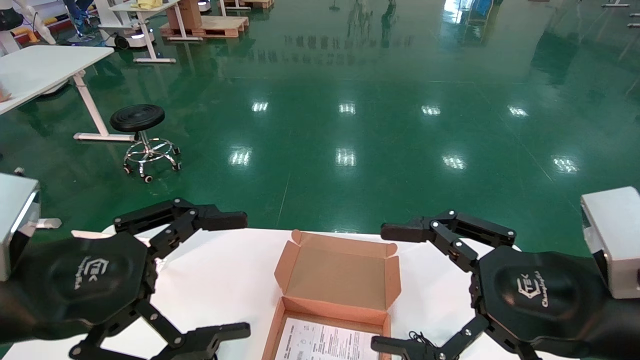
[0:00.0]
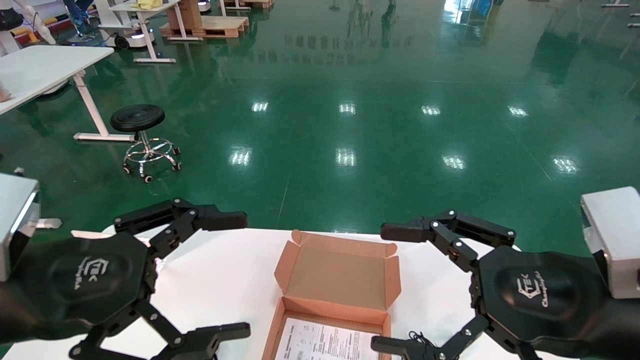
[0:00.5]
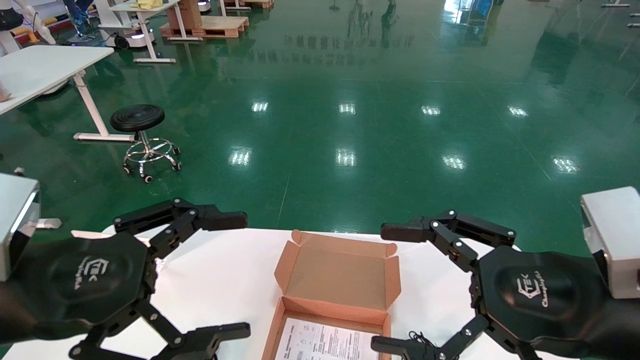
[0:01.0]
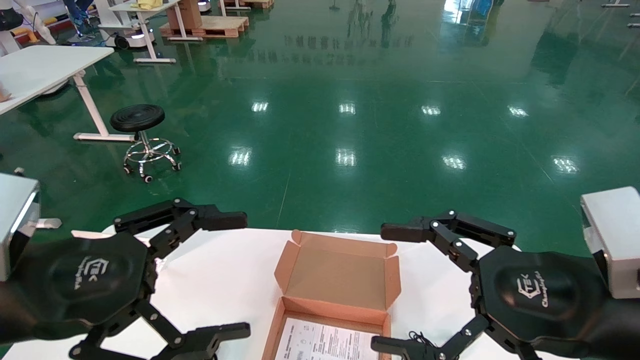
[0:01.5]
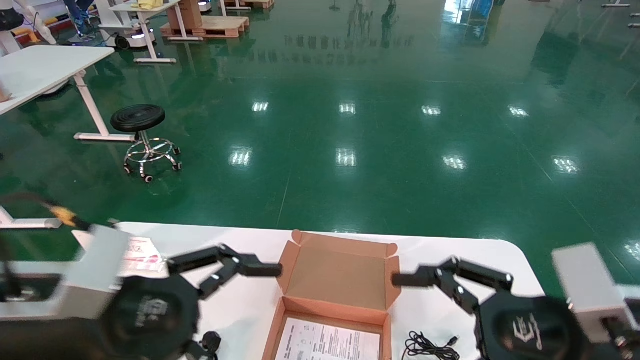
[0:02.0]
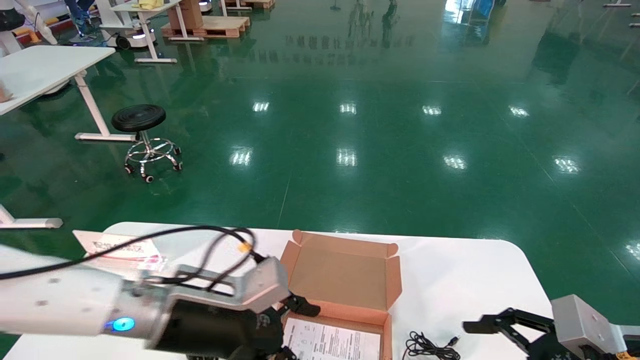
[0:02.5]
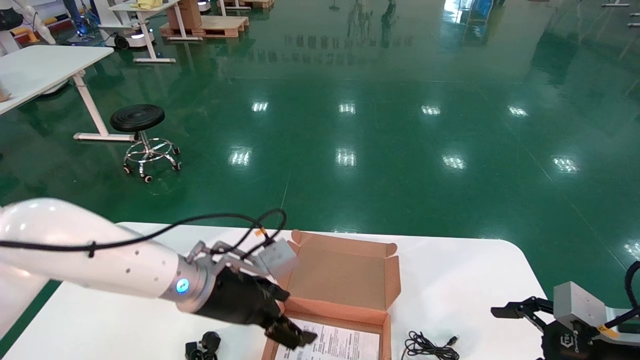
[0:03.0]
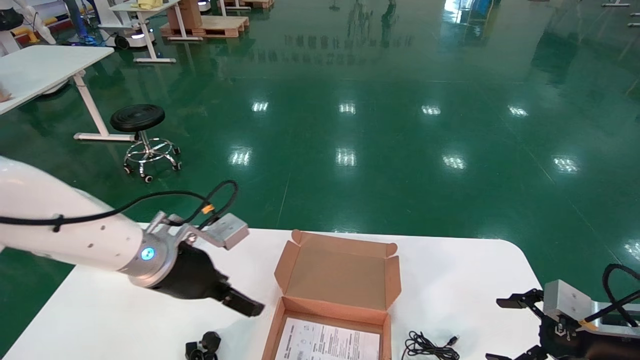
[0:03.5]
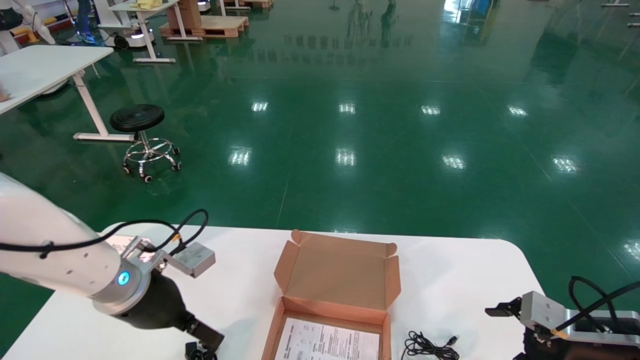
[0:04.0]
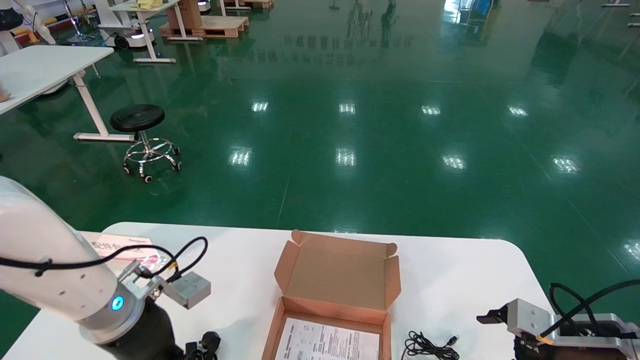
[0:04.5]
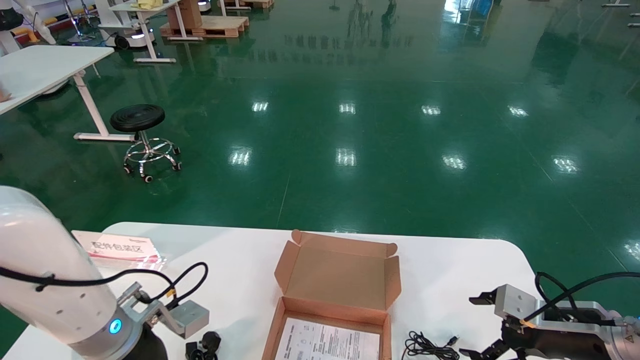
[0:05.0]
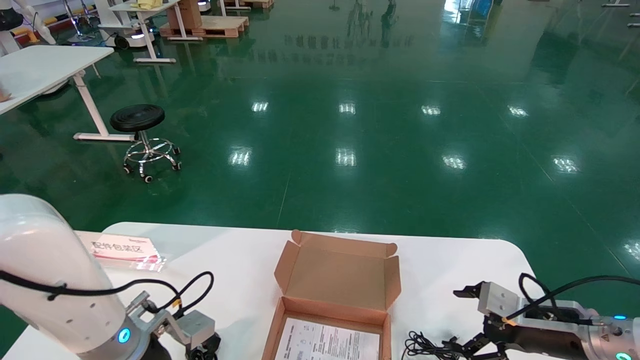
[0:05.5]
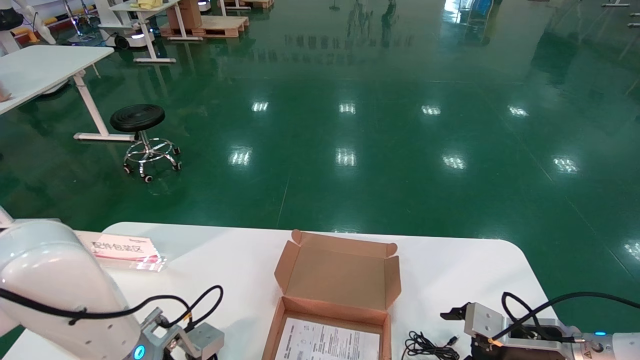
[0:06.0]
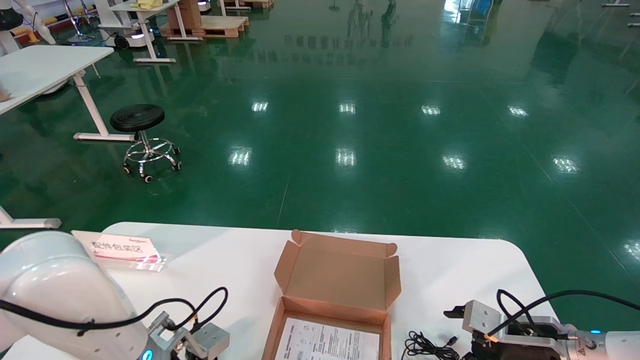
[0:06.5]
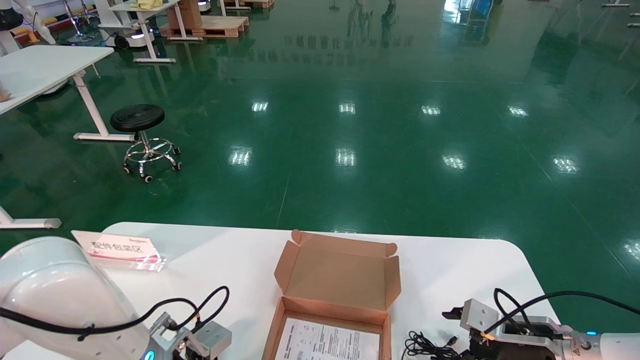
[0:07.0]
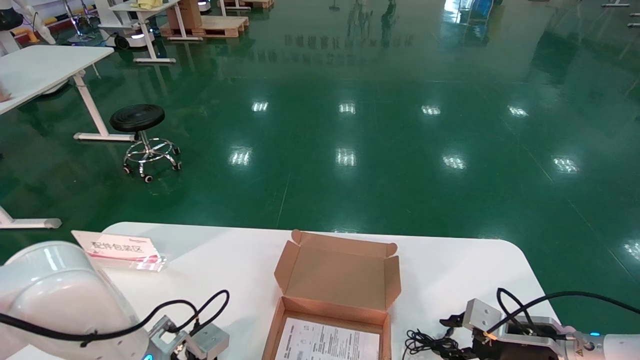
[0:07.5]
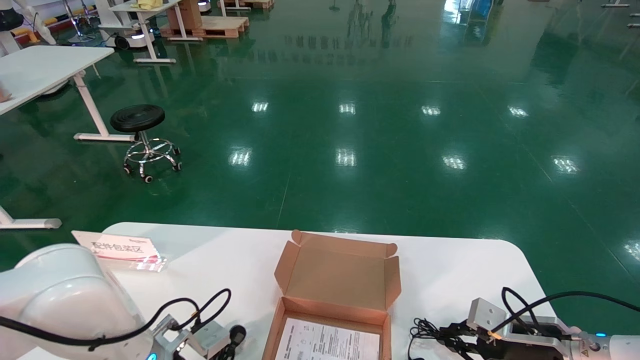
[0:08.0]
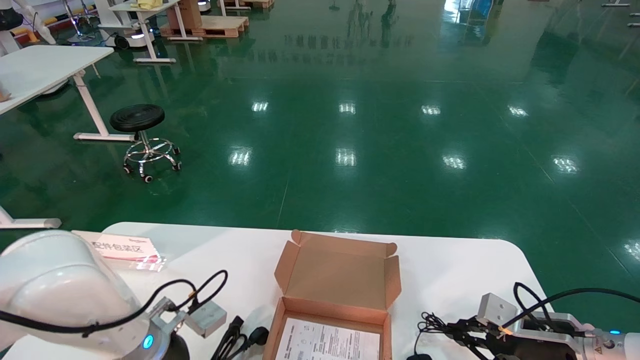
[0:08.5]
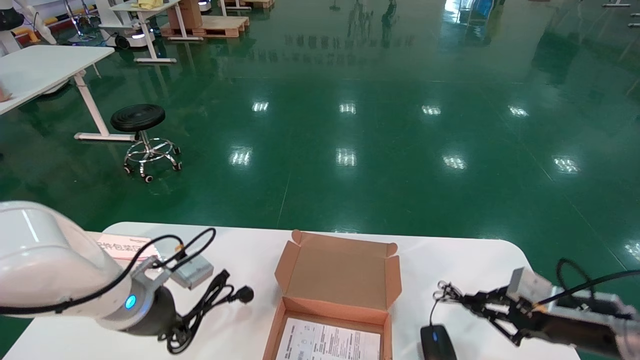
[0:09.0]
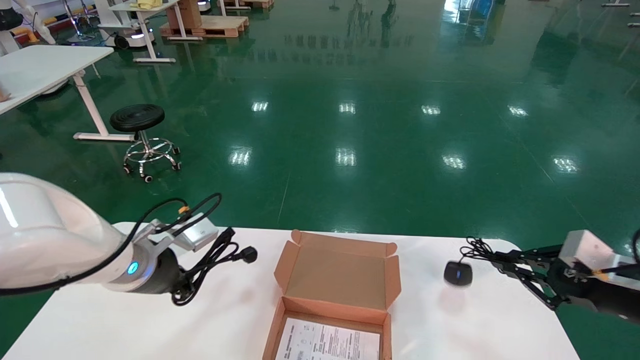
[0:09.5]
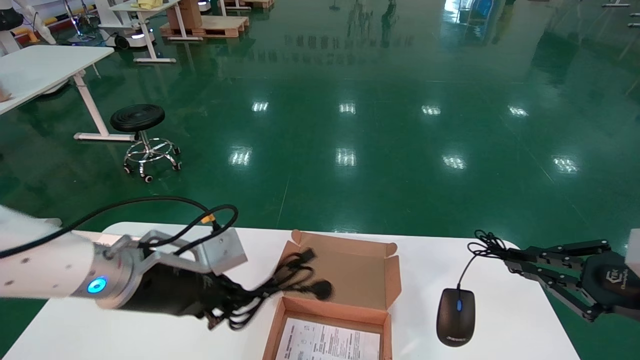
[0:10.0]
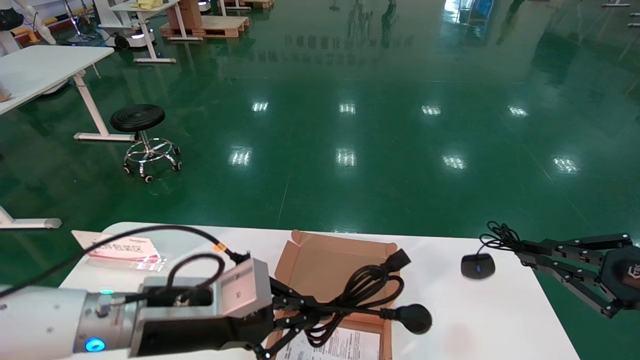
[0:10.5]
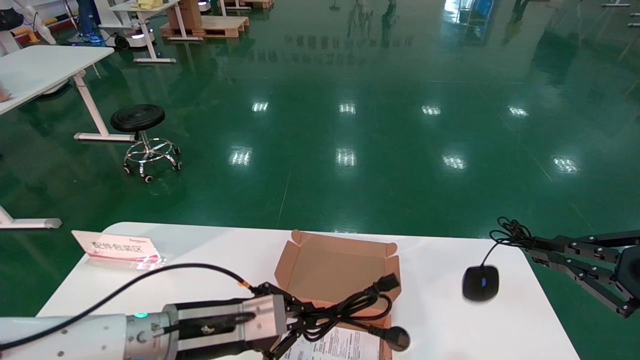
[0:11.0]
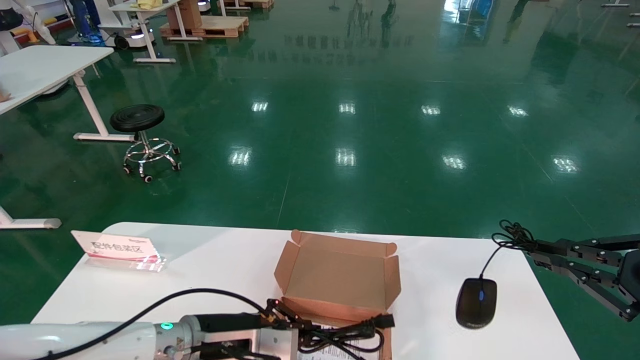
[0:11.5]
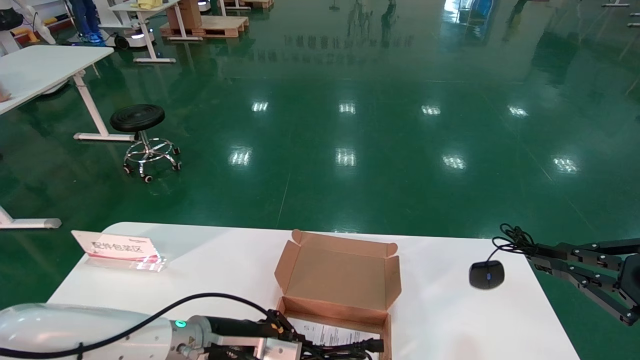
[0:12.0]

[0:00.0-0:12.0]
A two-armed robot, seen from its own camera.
Step, 0:00.0 to 0:07.5: Grasp the mouse and data cable.
0:00.0 to 0:02.0: The left gripper ends up about 5 cm from where it was.
0:02.0 to 0:04.0: The right gripper travels to the right, downward and forward by roughly 20 cm; the left gripper shifts some 15 cm forward and downward.
0:04.0 to 0:06.0: The left gripper travels downward by approximately 10 cm. Meanwhile the right gripper travels to the left by about 5 cm.
0:06.0 to 0:08.0: The right gripper closes; the left gripper closes up.
0:08.0 to 0:10.0: The left gripper travels upward by approximately 10 cm. Meanwhile the right gripper moves upward, backward and to the right, approximately 20 cm.
0:10.0 to 0:12.0: The left gripper goes roughly 10 cm downward.

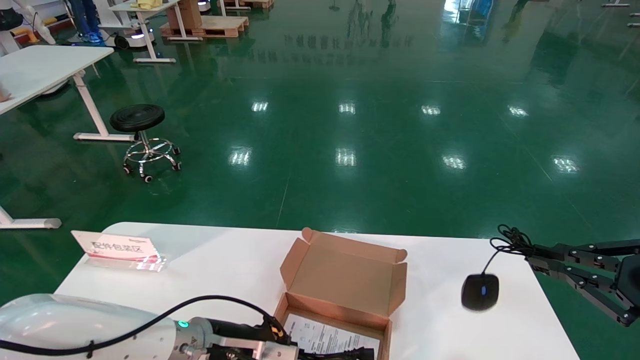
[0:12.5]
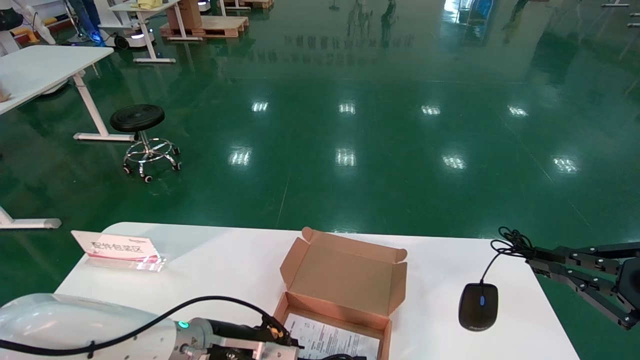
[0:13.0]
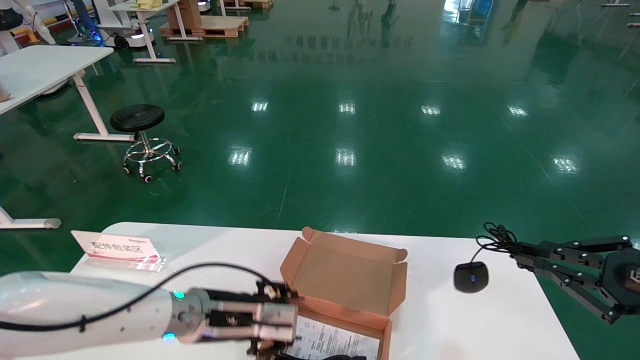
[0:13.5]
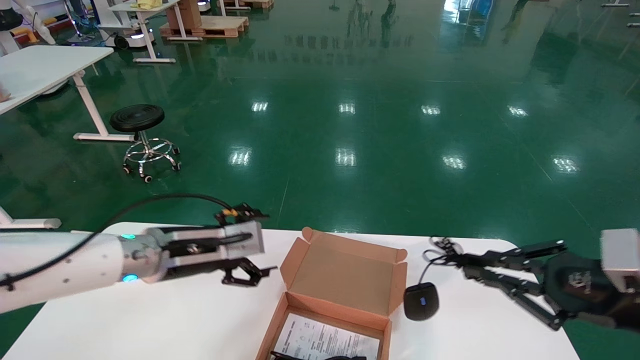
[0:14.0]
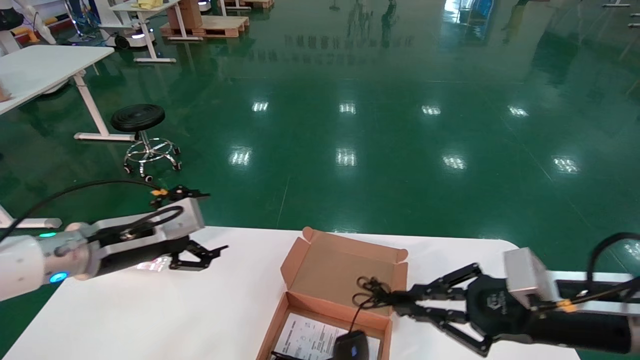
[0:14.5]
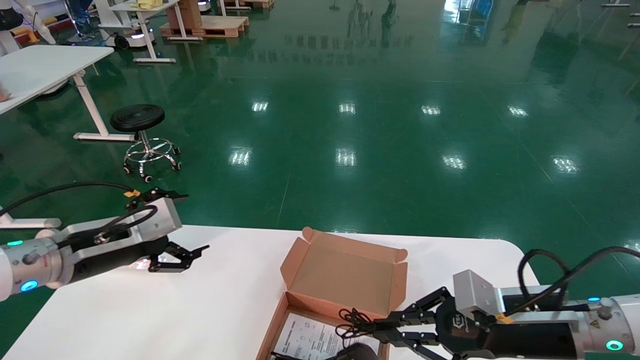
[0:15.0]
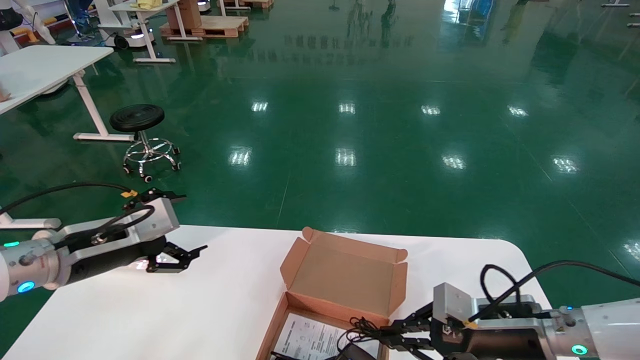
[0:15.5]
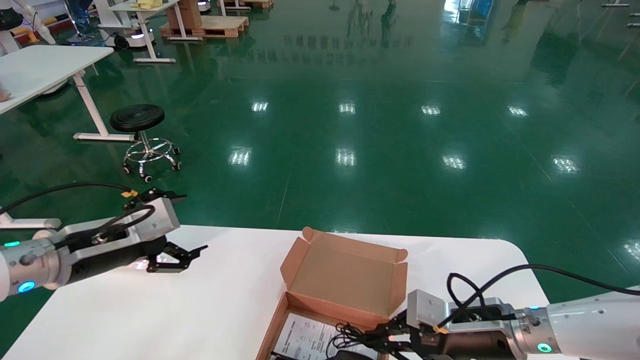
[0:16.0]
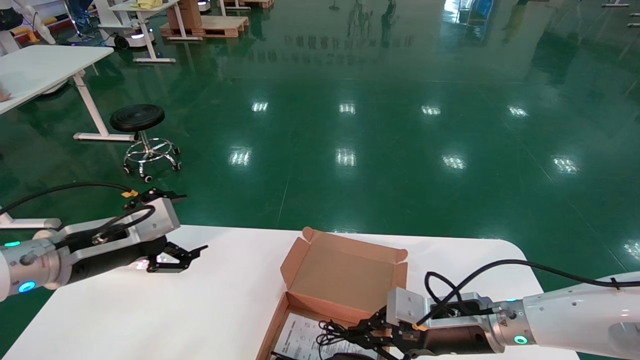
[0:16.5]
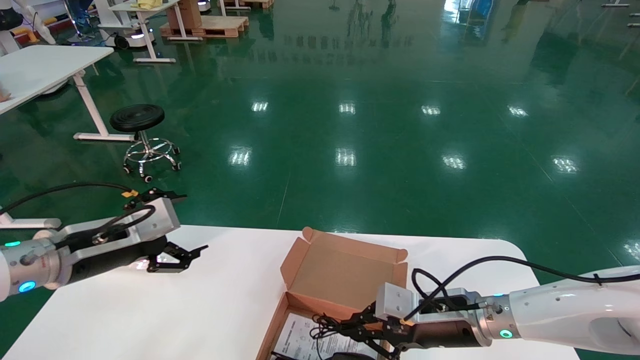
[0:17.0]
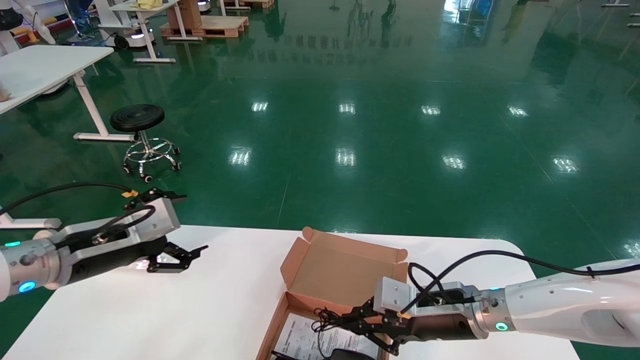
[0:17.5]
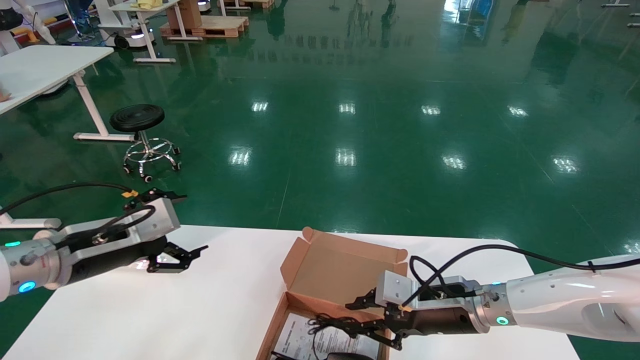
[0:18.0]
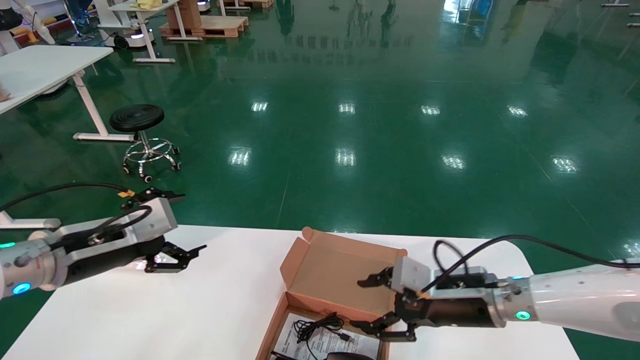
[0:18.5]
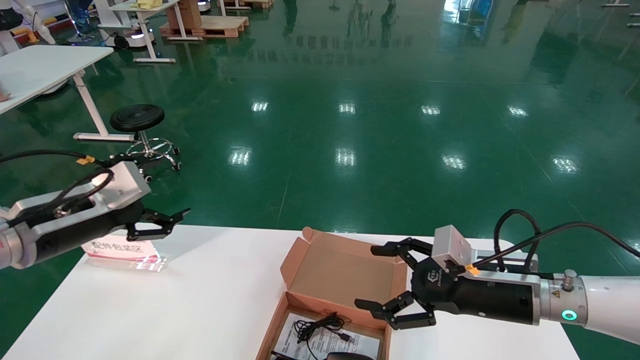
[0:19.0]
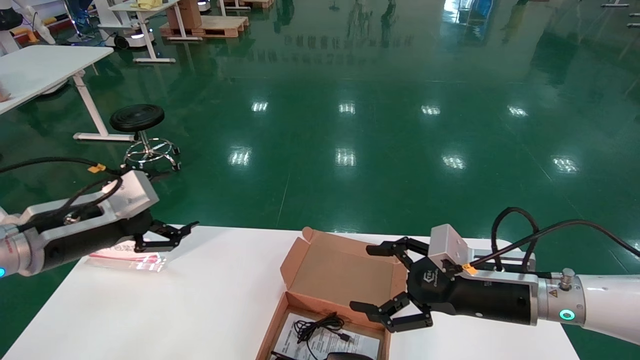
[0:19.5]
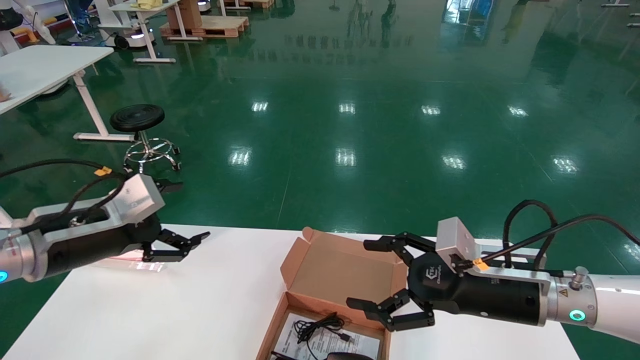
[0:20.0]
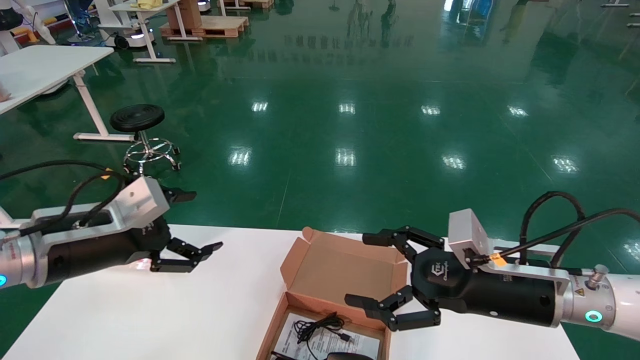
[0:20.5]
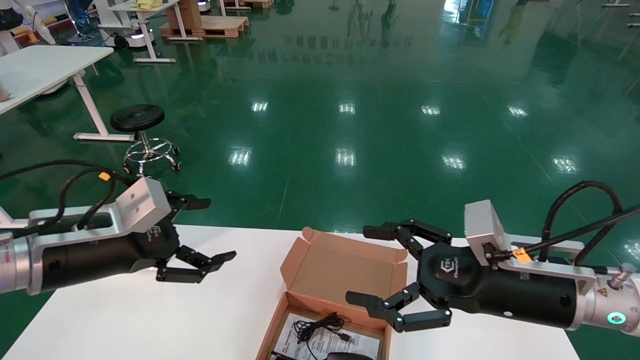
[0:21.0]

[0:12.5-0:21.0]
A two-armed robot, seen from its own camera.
Step, 0:12.5 to 0:15.5: Place the mouse and data cable in the paper box.
0:12.5 to 0:14.5: The left gripper travels upward and to the left by some 20 cm, and opens its fingers. The right gripper shifts roughly 15 cm to the left.
0:14.5 to 0:16.5: The right gripper is displaced to the left, downward and forward by about 15 cm.
0:16.5 to 0:19.0: The right gripper goes roughly 5 cm upward, and opens up.
0:19.0 to 0:21.0: The right gripper is displaced backward by approximately 5 cm.
